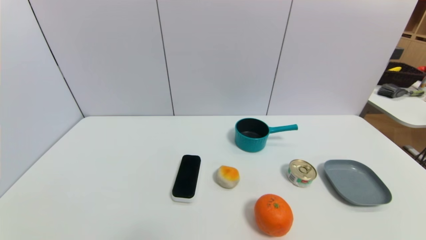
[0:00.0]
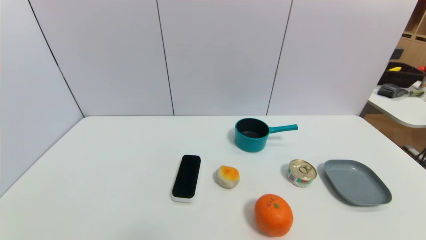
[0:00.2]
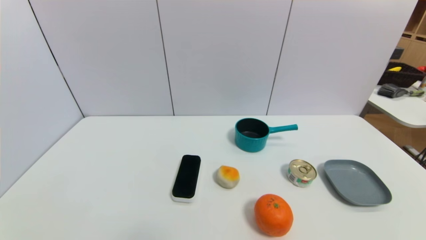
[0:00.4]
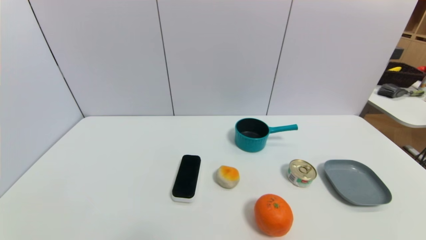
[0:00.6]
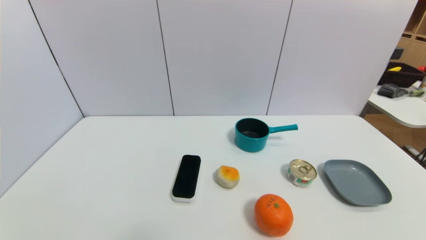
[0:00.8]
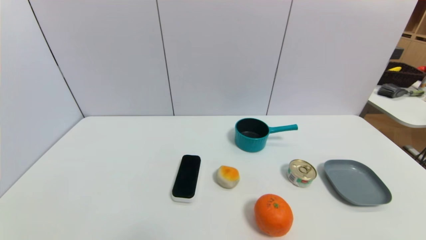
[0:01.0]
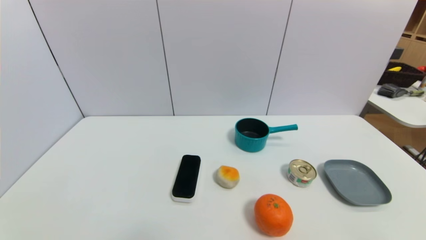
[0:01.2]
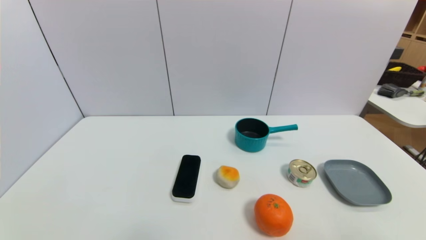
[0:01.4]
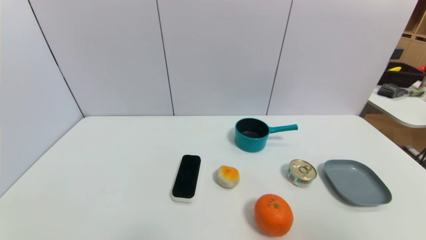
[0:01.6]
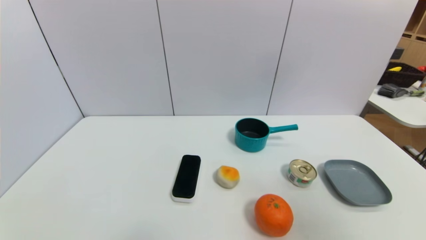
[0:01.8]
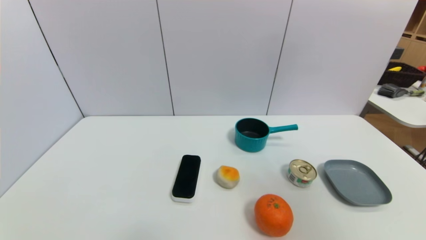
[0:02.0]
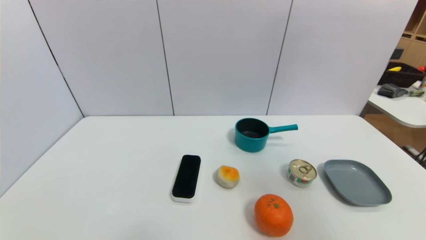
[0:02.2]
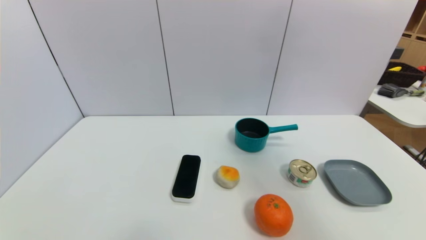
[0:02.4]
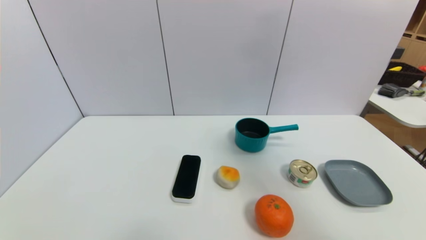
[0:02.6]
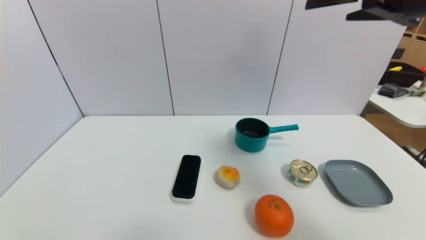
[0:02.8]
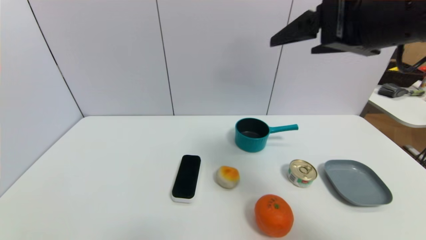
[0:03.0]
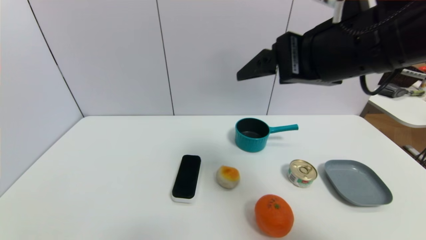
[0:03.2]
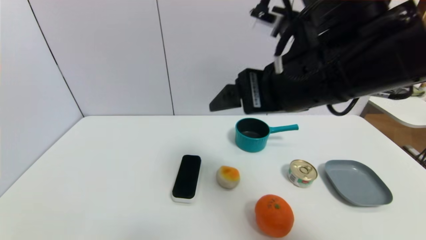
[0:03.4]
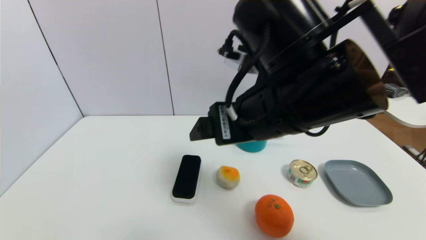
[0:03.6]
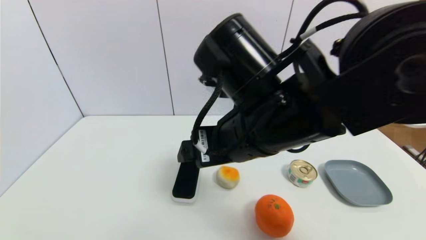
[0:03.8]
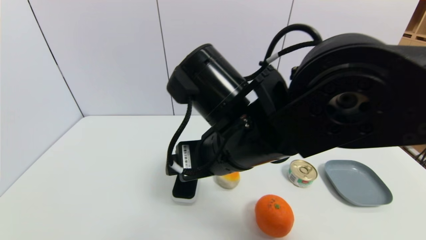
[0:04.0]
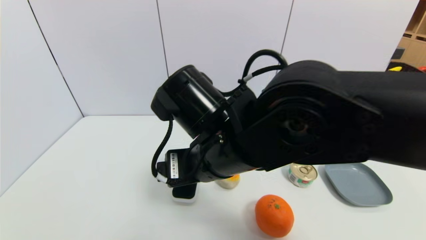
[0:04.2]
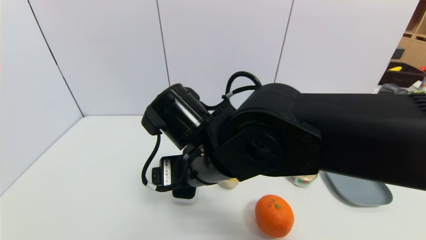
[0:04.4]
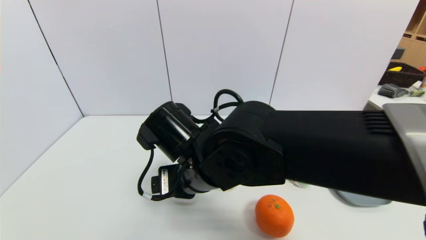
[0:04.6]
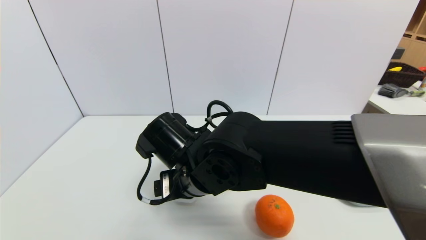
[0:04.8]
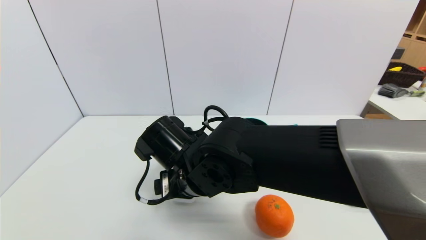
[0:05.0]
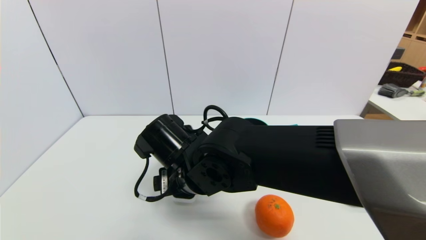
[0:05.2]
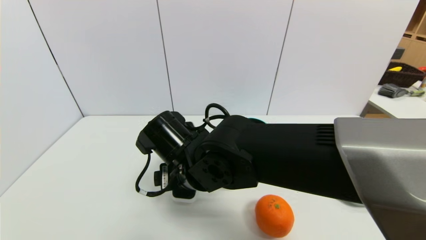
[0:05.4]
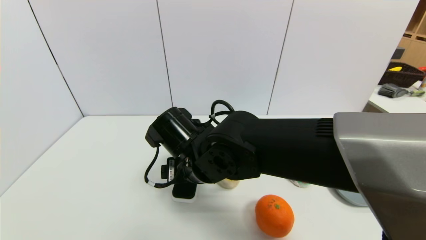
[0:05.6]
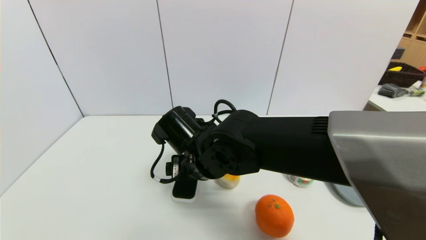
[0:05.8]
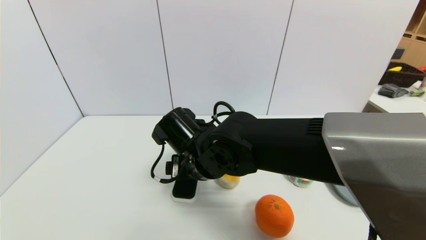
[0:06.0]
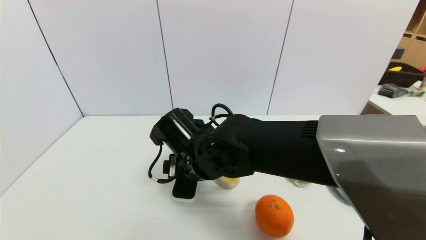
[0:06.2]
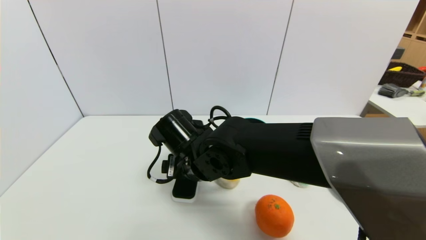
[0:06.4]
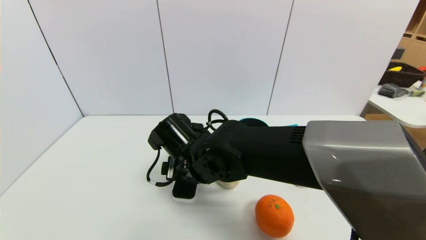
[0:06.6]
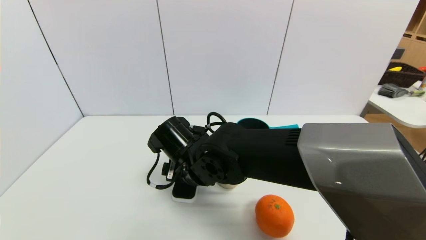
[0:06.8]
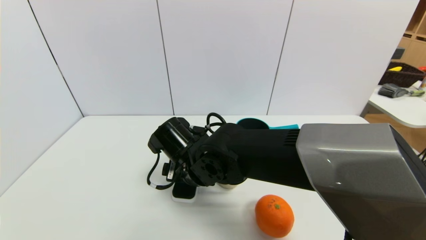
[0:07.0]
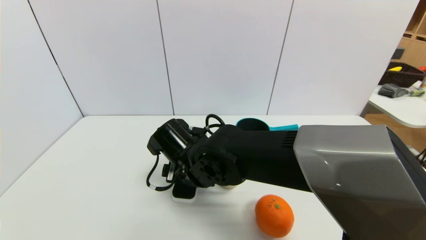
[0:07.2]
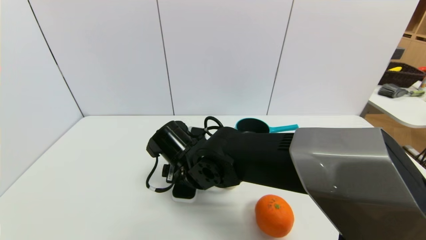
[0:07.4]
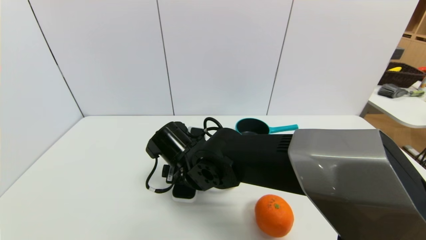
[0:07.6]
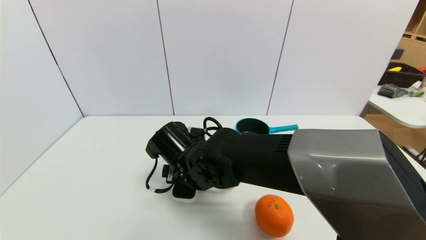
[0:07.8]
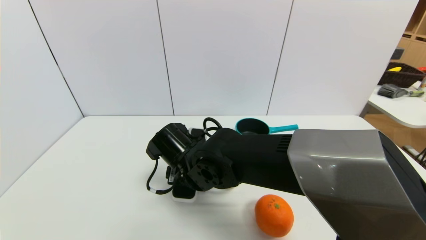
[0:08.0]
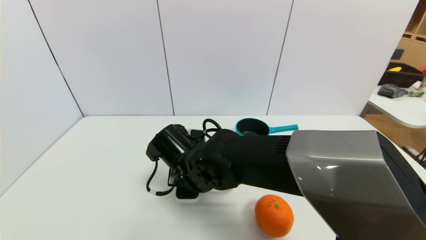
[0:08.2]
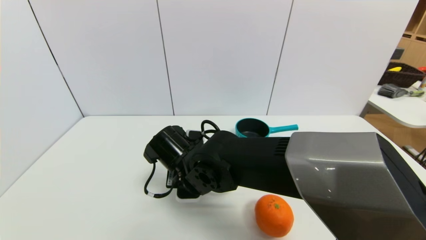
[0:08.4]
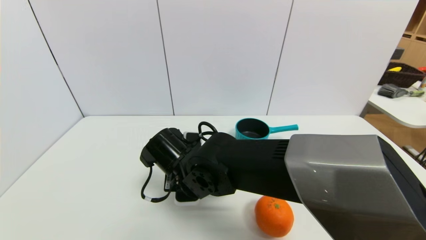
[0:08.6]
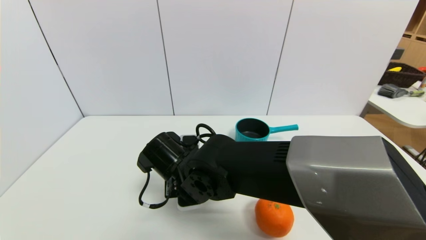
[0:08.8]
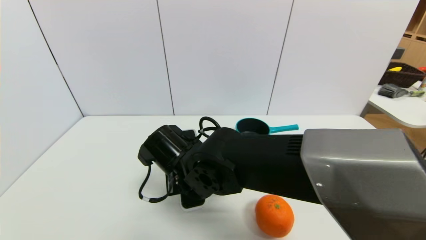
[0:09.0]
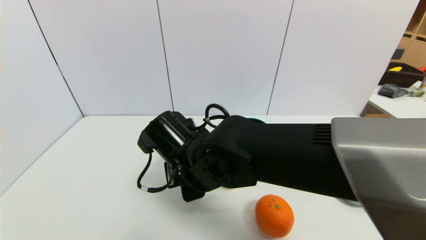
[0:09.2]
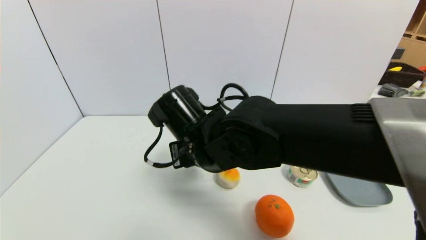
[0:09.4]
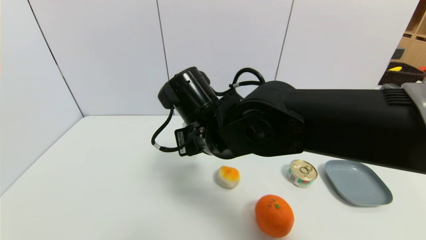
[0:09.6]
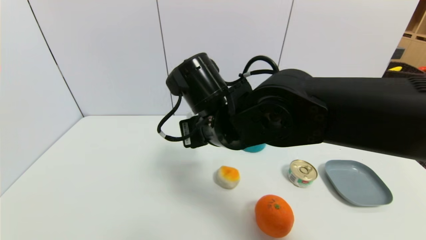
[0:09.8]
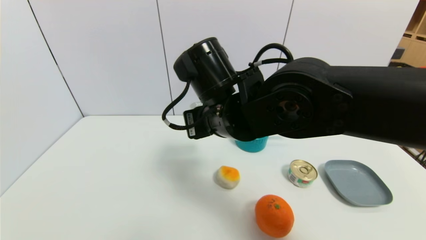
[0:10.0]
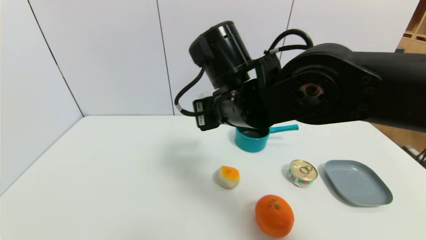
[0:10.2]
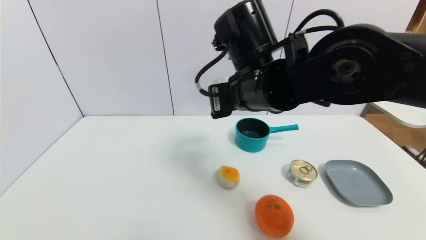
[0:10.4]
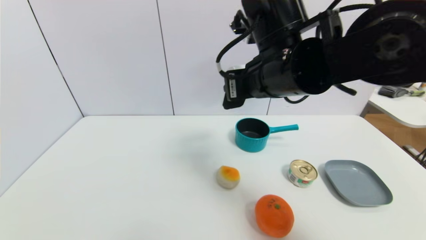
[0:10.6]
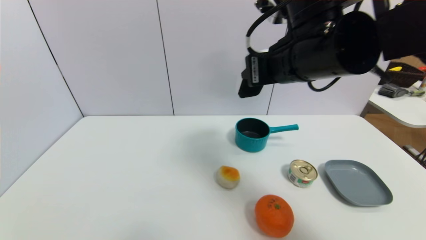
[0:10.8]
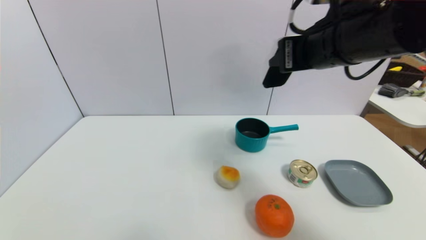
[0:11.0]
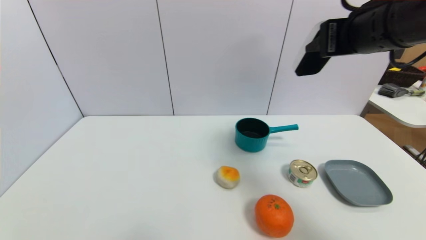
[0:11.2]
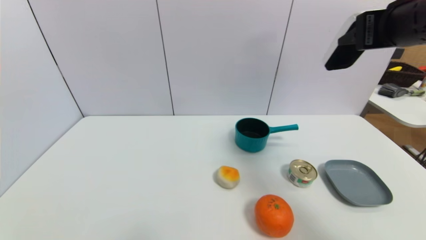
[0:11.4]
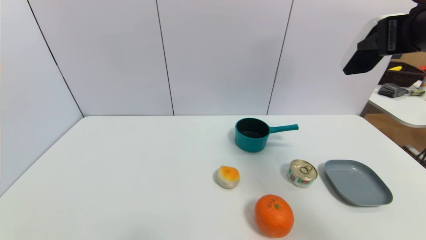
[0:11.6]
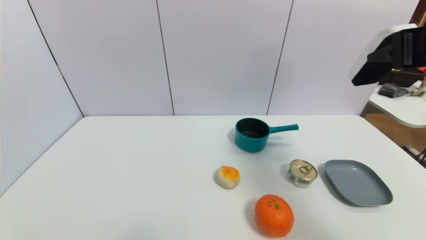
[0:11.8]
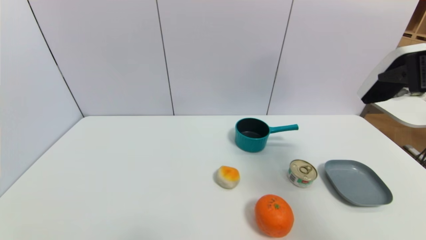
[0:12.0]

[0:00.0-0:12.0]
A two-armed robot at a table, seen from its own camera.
Task of the whole recording: use a gripper to pick the target object and place on the dish.
Step, 0:00.0 to 0:08.4: Grasp the blackboard erasure with the right gripper.
0:00.0 to 0:01.6: The right gripper moves upward, about 30 cm.
0:01.6 to 0:03.0: The right gripper goes approximately 25 cm forward and to the left.
0:03.0 to 0:04.4: The right gripper travels to the left and downward by some 25 cm.
0:04.4 to 0:06.0: The right gripper travels downward by some 5 cm.
0:06.0 to 0:07.6: There are only small adjustments of the grippers.
0:07.6 to 0:09.0: The right gripper closes up.
0:09.0 to 0:10.4: The right gripper goes about 20 cm upward and to the right.
0:10.4 to 0:12.0: The right gripper goes approximately 25 cm to the right.

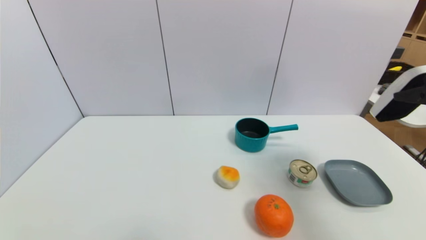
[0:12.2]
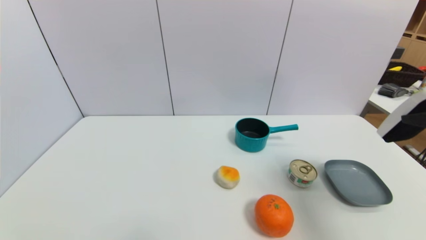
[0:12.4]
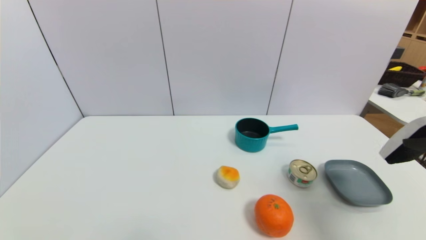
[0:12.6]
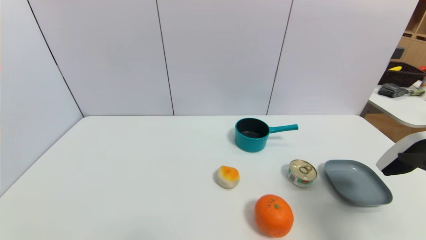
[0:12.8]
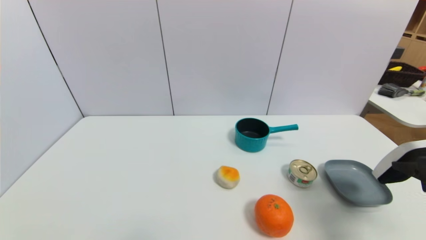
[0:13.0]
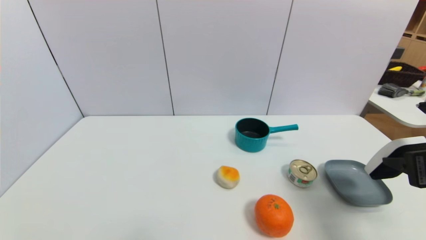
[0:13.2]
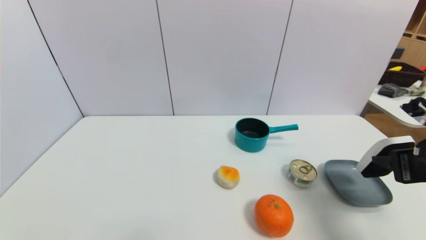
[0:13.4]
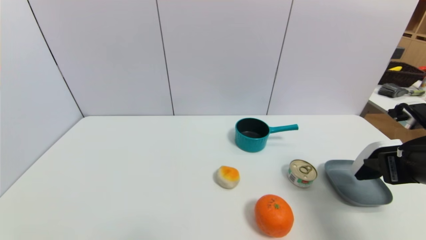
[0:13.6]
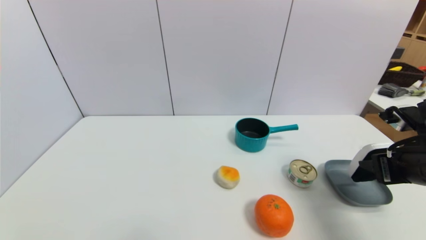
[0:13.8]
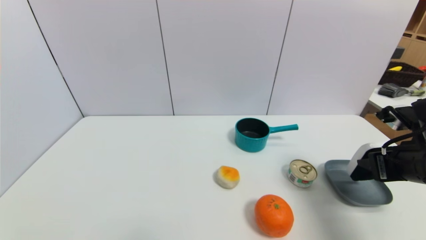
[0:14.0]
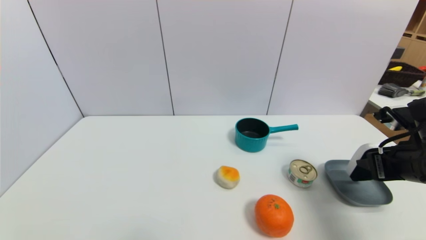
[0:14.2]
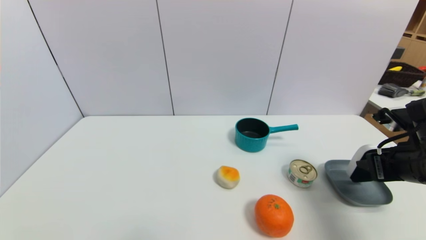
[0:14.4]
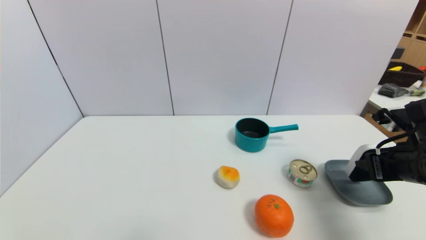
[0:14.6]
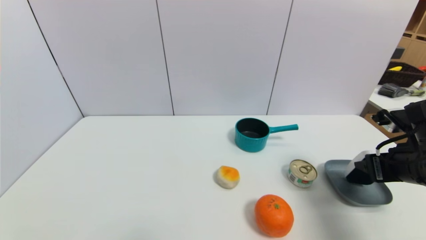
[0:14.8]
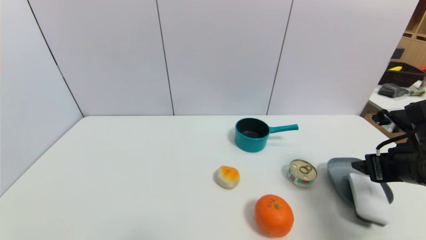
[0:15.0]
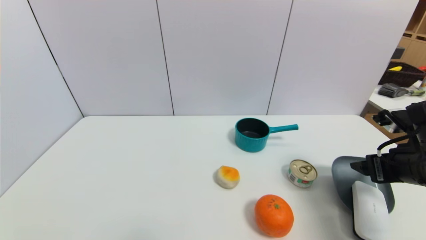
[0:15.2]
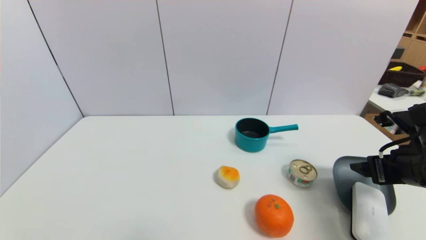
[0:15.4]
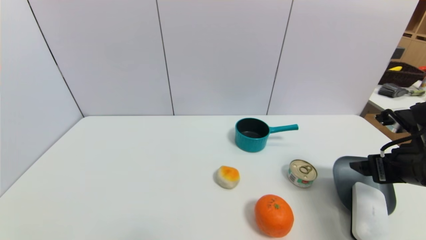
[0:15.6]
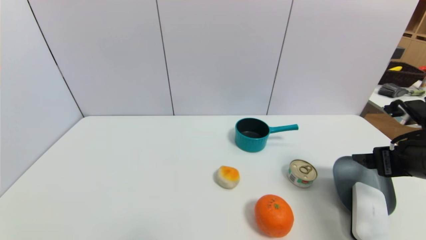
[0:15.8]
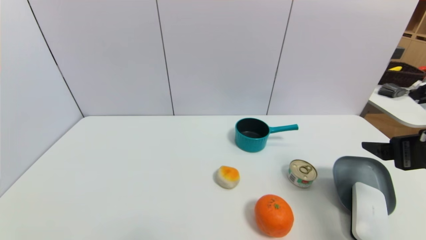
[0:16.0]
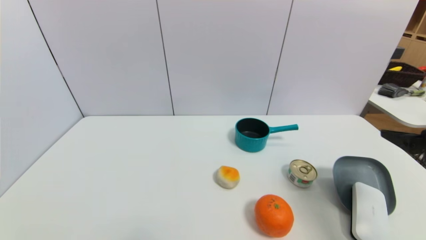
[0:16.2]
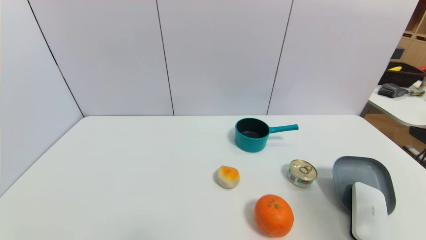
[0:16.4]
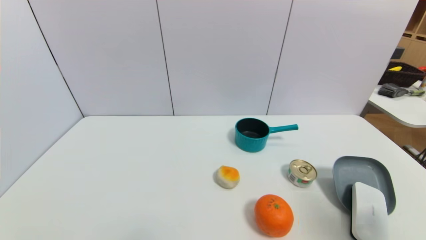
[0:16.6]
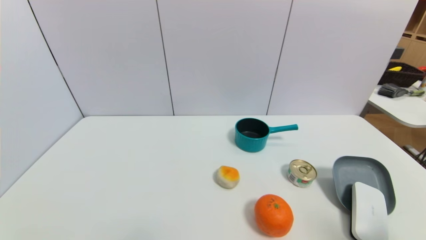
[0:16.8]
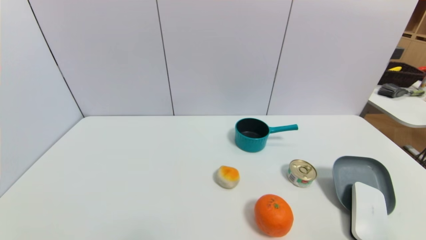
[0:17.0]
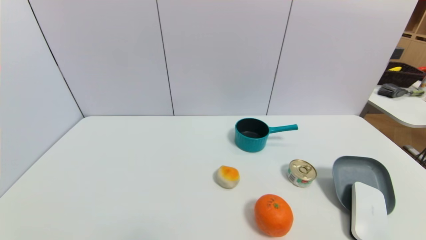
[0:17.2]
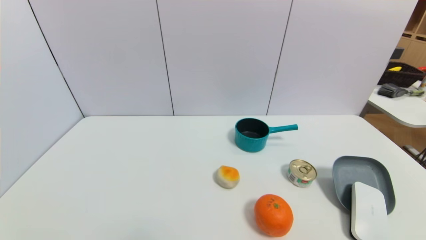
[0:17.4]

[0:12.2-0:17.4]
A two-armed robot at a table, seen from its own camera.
Task of the whole recording: use a gripper to pick the target object and place on the dish.
Step, 0:12.2 to 0:16.0: Place the blackboard erasure on the dish with the right gripper.
0:12.2 to 0:14.0: The right gripper heads downward, covering some 15 cm.
0:14.0 to 0:15.6: The right gripper opens its fingers.
0:15.6 to 0:17.4: The right gripper is displaced backward by approximately 25 cm.
